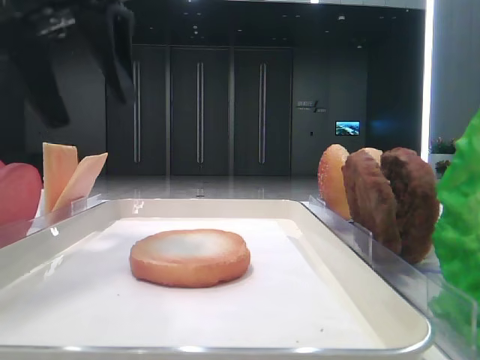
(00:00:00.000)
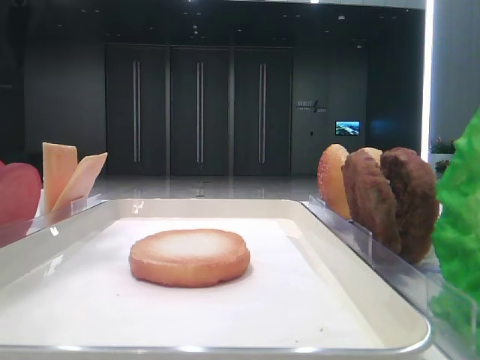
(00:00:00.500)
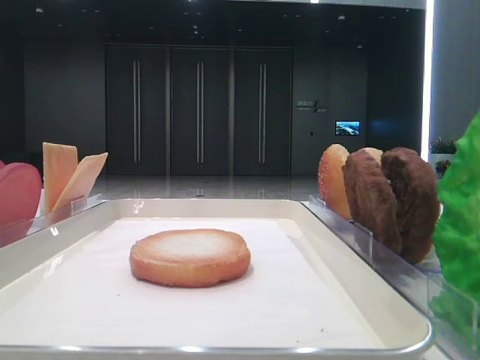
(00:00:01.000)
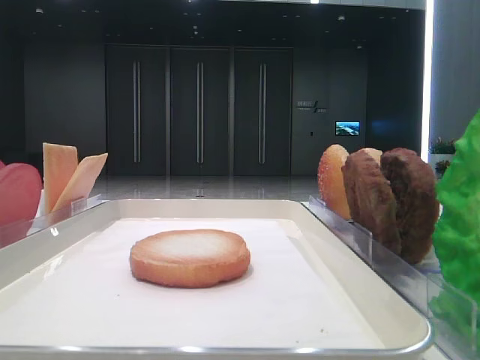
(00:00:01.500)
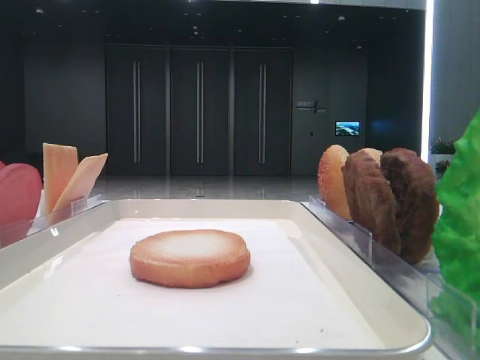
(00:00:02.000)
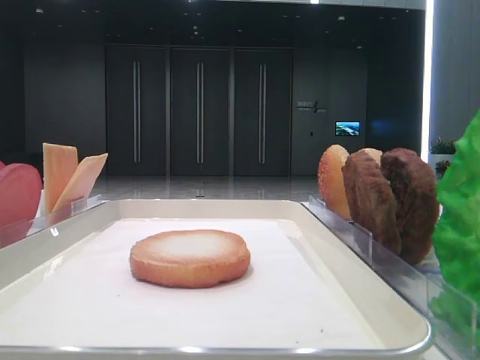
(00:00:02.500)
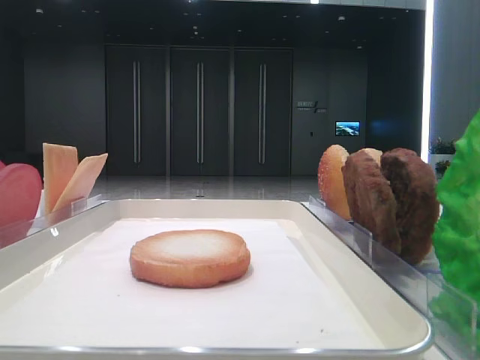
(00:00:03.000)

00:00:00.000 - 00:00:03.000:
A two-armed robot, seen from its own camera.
00:00:00.000 - 00:00:01.500: The left gripper heads backward and to the left, covering about 25 cm.

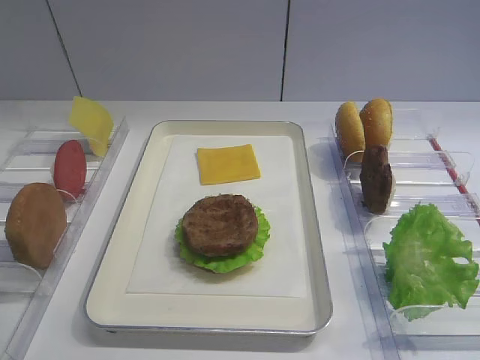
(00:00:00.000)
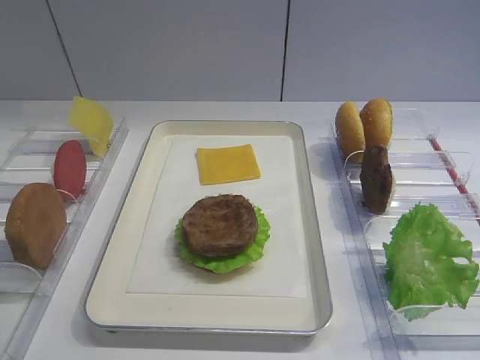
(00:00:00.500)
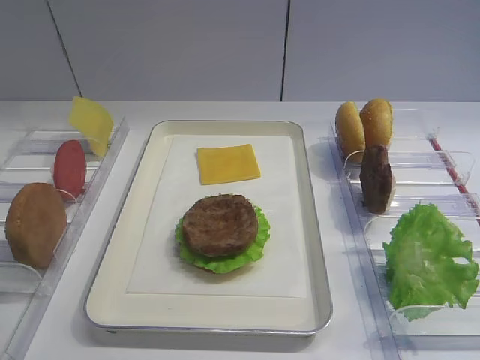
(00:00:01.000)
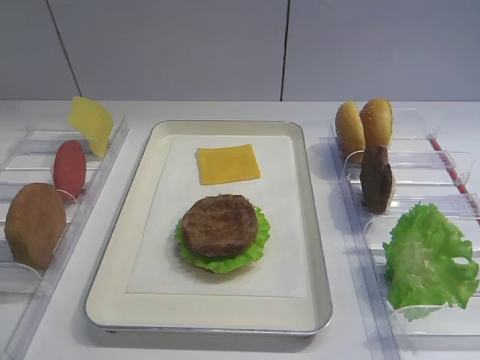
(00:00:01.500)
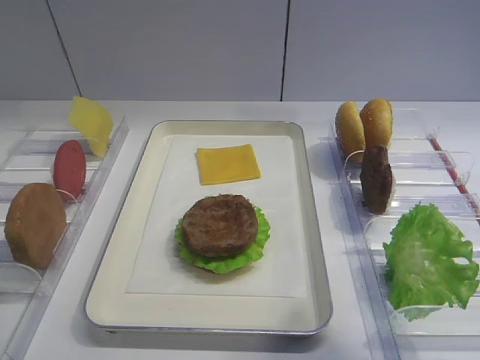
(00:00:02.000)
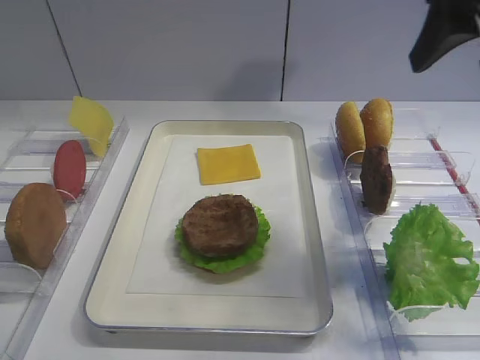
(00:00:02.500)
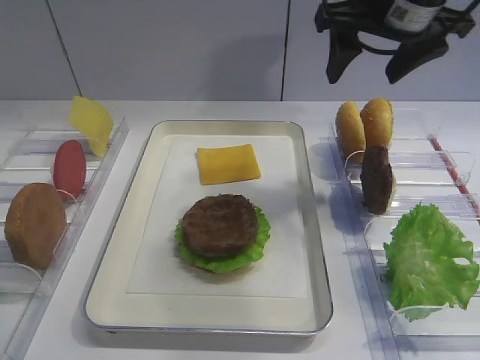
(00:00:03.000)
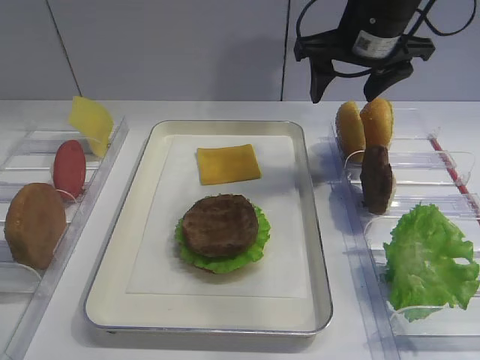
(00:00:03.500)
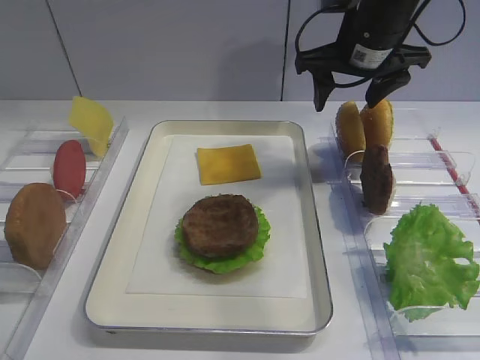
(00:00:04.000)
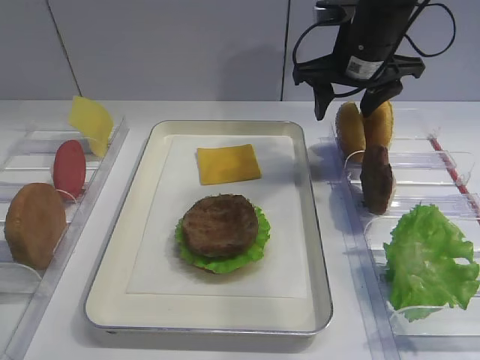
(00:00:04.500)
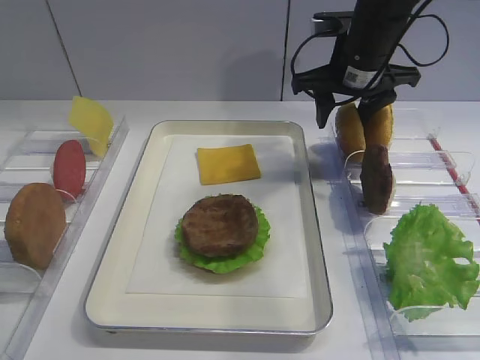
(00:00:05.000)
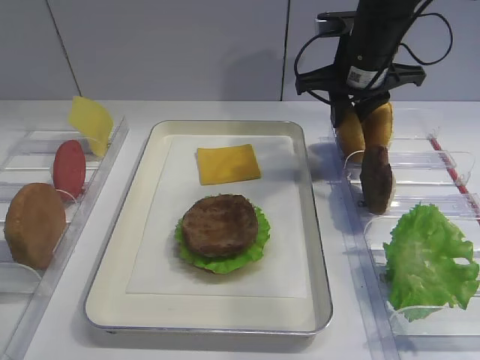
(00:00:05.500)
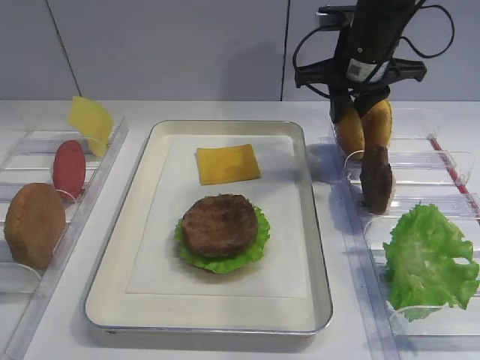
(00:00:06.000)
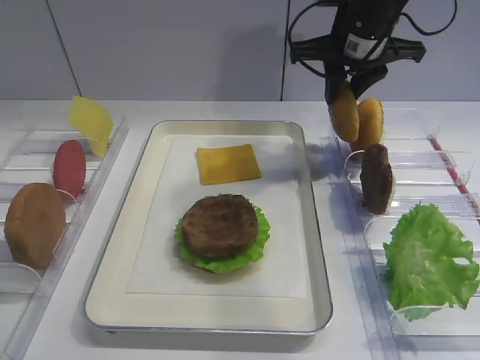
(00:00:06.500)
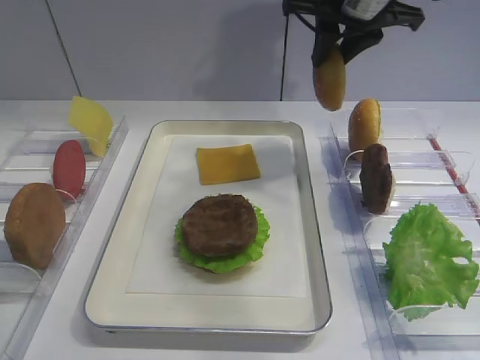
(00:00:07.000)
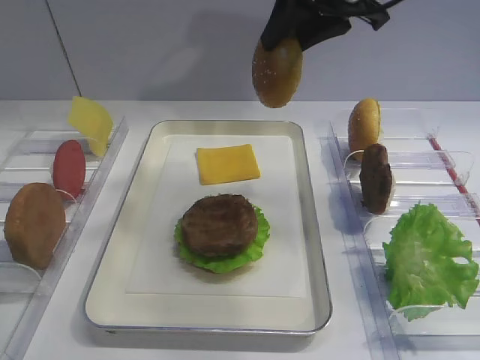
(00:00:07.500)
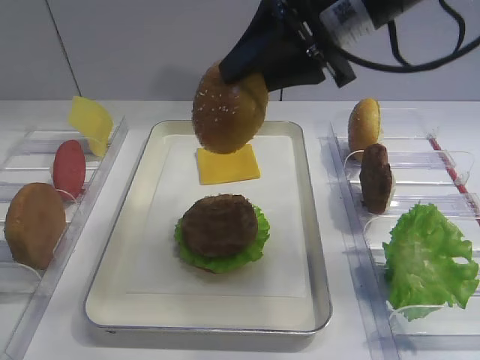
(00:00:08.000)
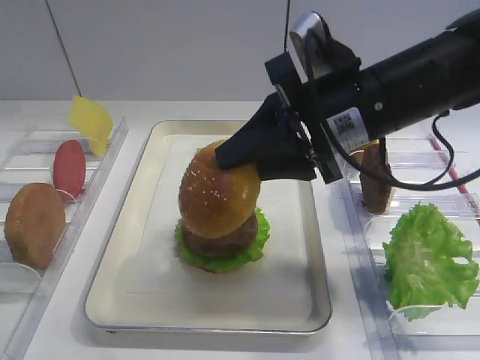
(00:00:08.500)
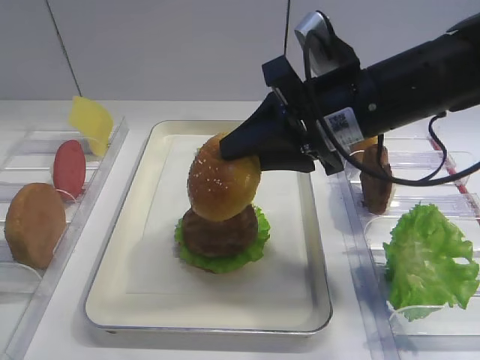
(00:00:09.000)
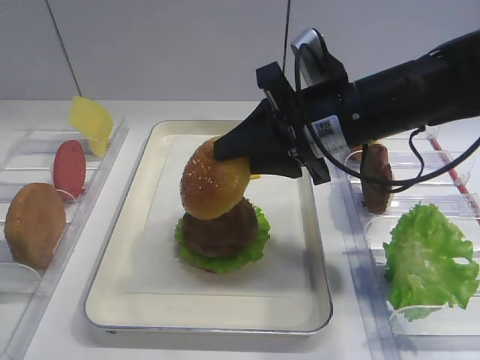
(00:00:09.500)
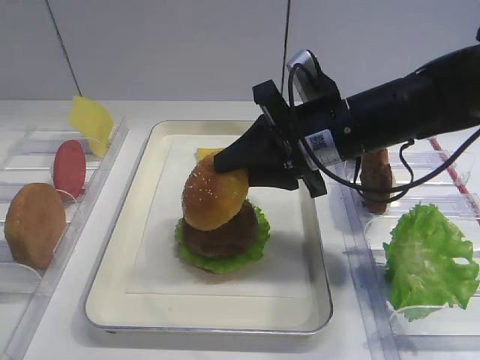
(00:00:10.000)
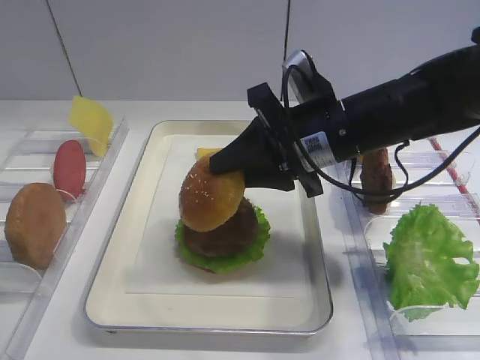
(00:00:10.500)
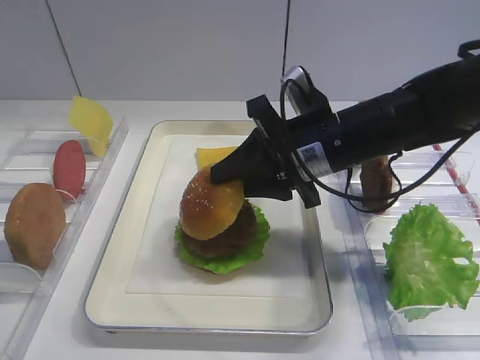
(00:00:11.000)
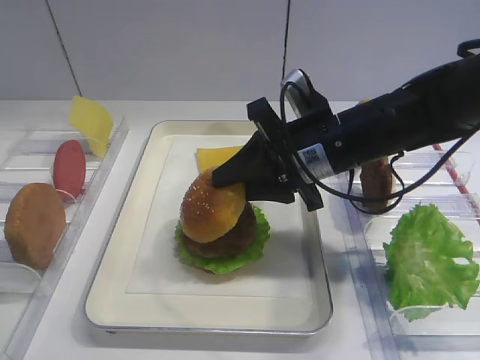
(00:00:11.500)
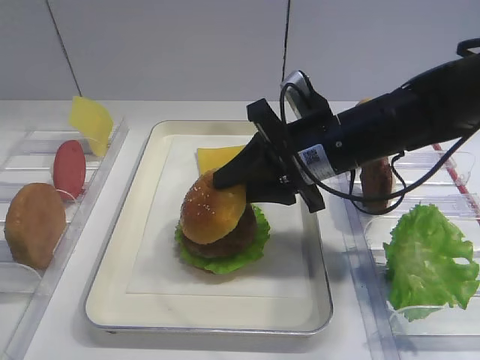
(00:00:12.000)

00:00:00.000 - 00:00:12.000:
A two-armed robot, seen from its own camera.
Step, 00:00:00.000 - 00:00:06.500: Pick up the hamburger lid with the right gripper.
00:00:02.000 - 00:00:04.000: The right gripper moves forward, downward and to the left, some 30 cm.
00:00:04.000 - 00:00:06.000: The right gripper closes.
00:00:06.000 - 00:00:08.000: The right gripper travels backward and upward by some 15 cm.
00:00:08.000 - 00:00:10.000: The right gripper is displaced downward by roughly 10 cm.
00:00:10.000 - 00:00:12.000: There are only small adjustments of the grippers.

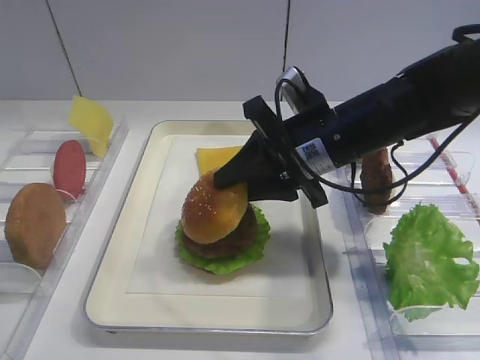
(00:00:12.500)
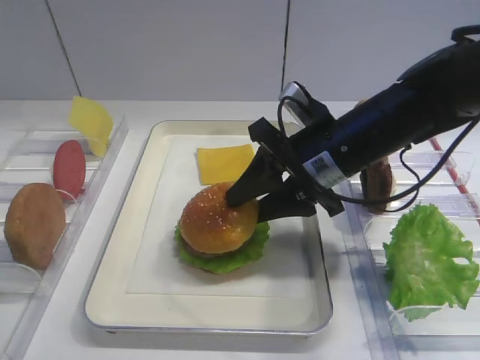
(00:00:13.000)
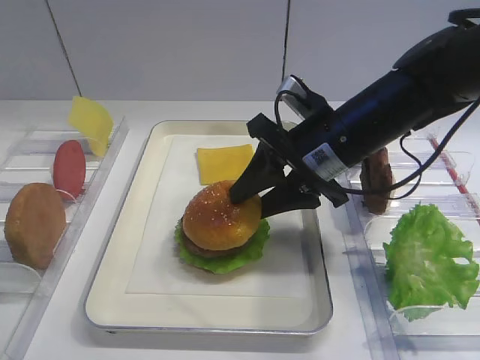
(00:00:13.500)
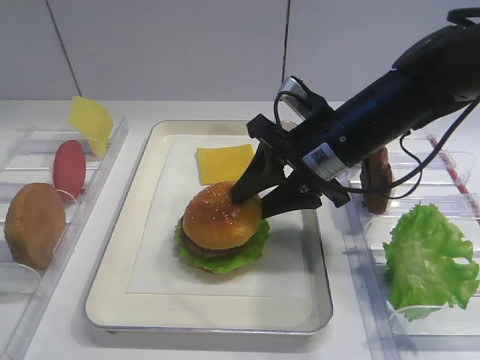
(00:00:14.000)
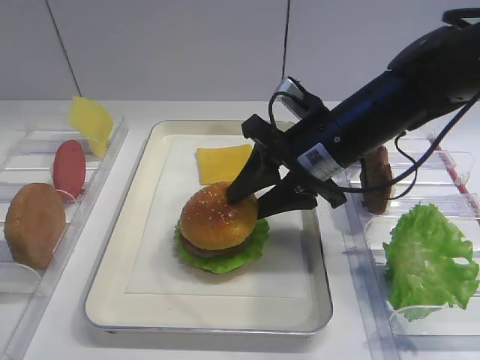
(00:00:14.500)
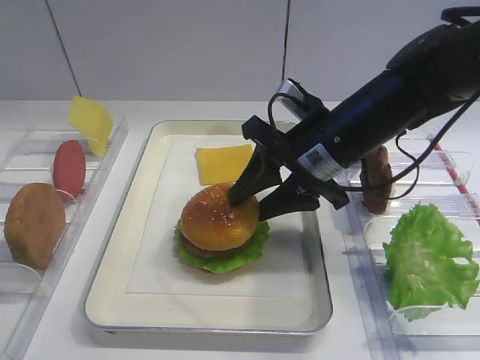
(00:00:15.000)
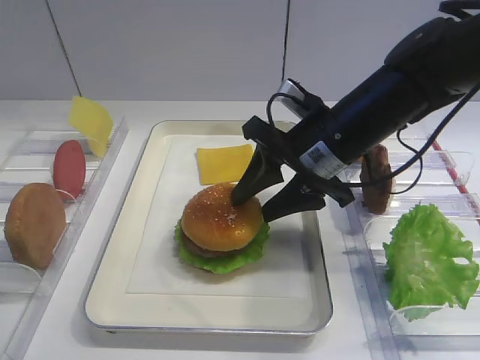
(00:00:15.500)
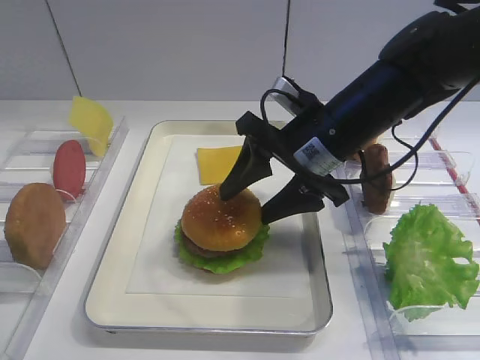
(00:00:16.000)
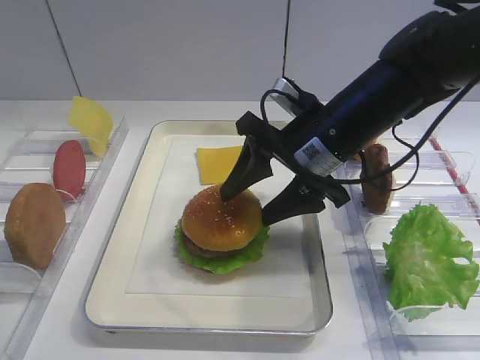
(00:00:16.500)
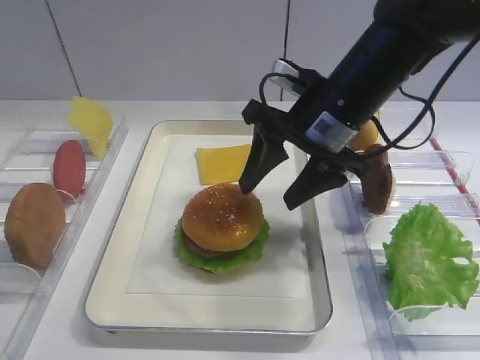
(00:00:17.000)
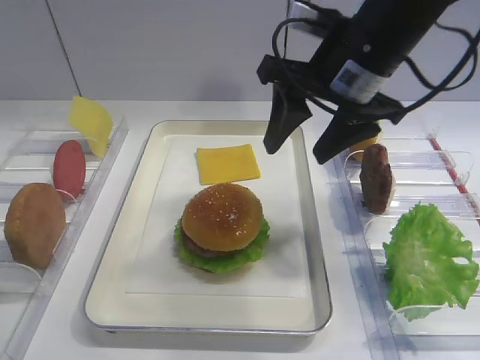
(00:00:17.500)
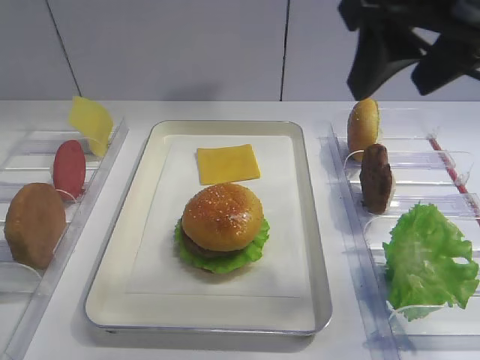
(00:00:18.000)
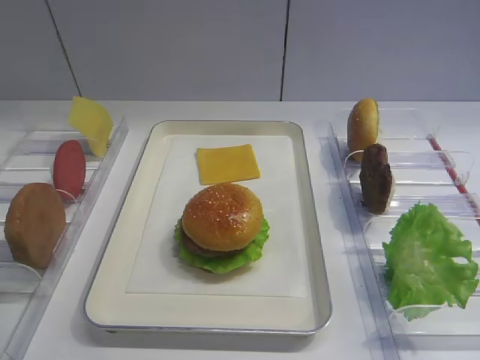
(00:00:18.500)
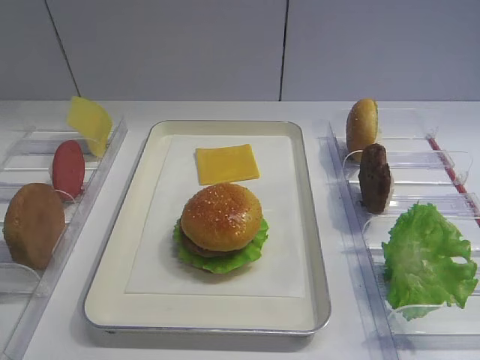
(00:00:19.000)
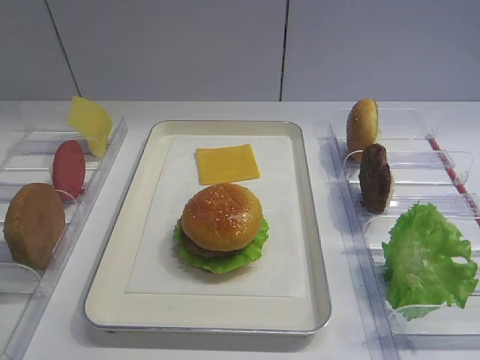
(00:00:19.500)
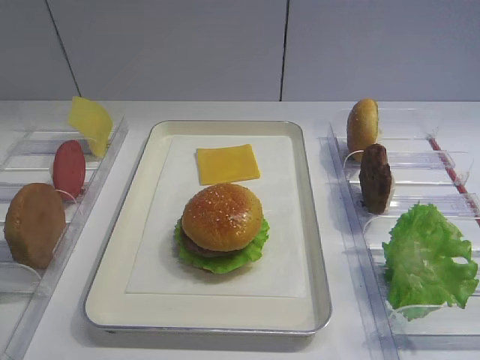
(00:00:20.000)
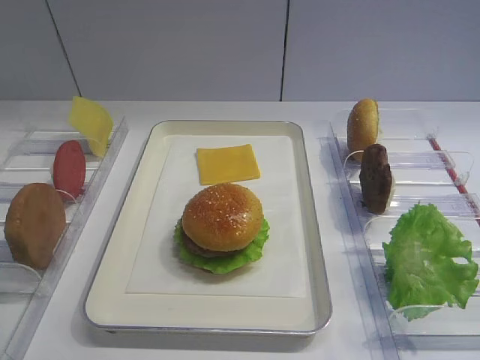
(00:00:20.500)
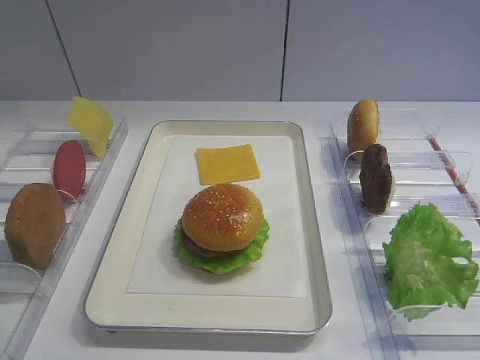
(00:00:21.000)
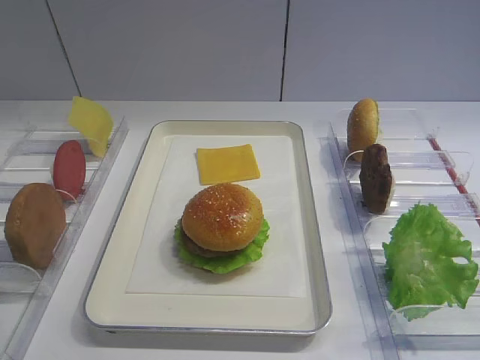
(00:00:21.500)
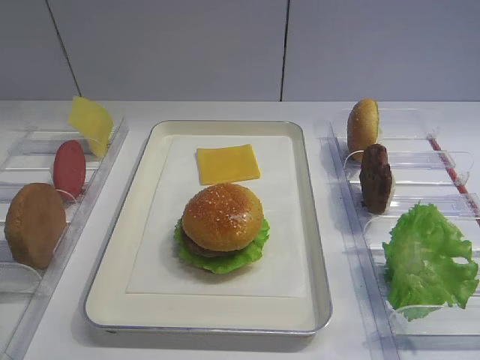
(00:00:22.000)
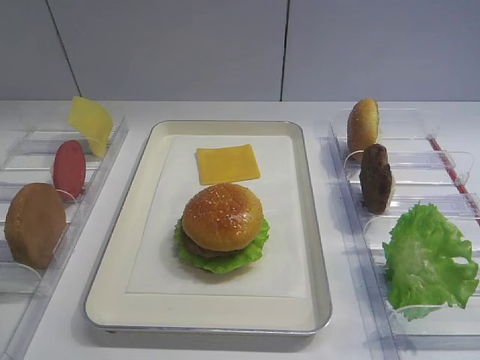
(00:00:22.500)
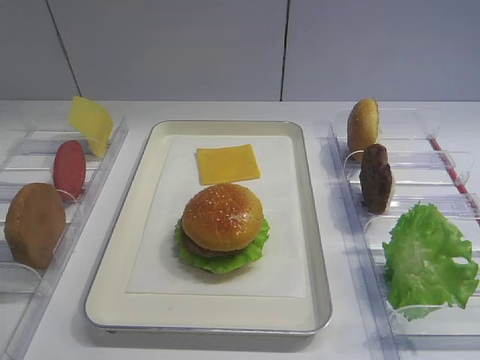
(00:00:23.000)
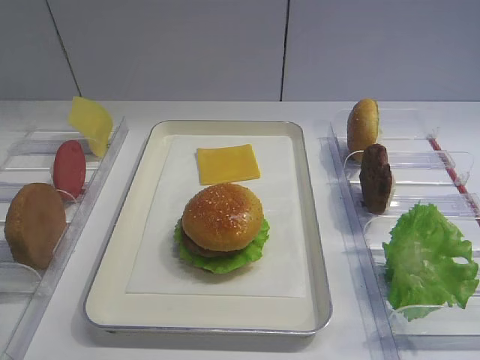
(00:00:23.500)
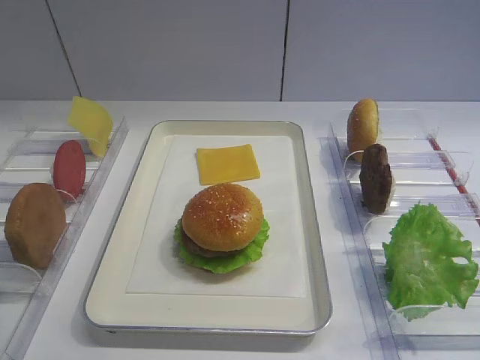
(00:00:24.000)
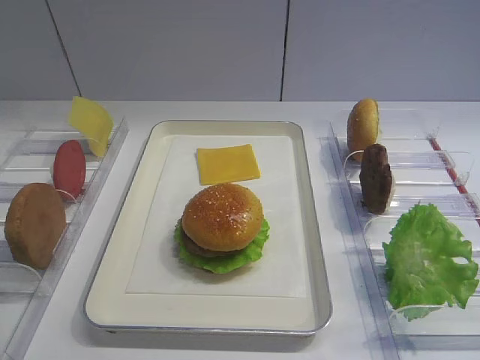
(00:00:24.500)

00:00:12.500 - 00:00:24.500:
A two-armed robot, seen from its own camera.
Step, 00:00:12.500 - 00:00:17.000: Place the hamburger lid on the cutlet with the right gripper.
00:00:12.500 - 00:00:14.500: The grippers move only a little.
00:00:14.500 - 00:00:16.500: The right gripper opens.
00:00:16.500 - 00:00:18.500: The right gripper heads backward, upward and to the right, covering approximately 30 cm.
00:00:22.500 - 00:00:24.500: Both grippers stay about where they are.
